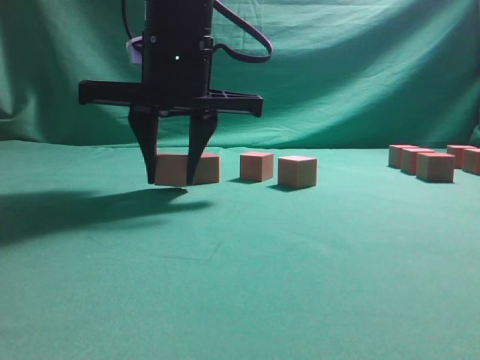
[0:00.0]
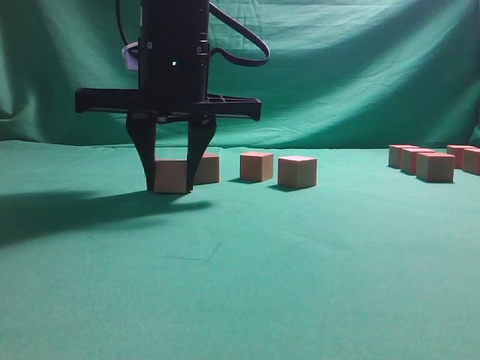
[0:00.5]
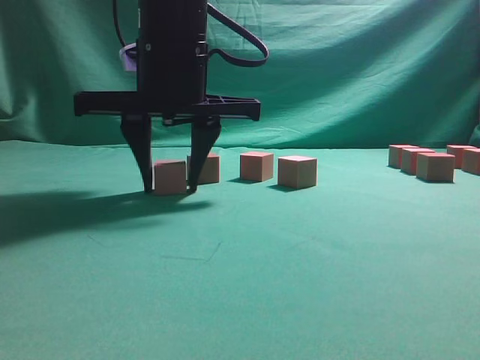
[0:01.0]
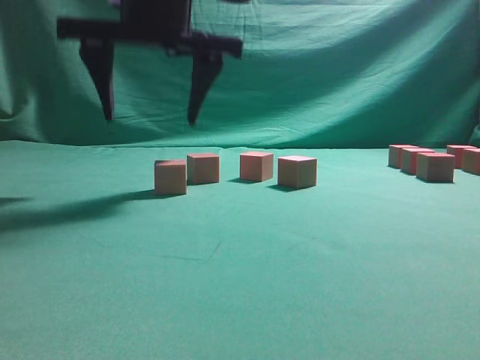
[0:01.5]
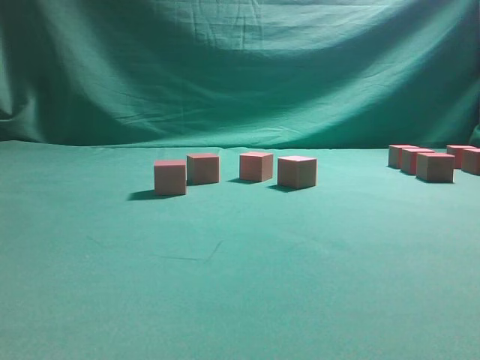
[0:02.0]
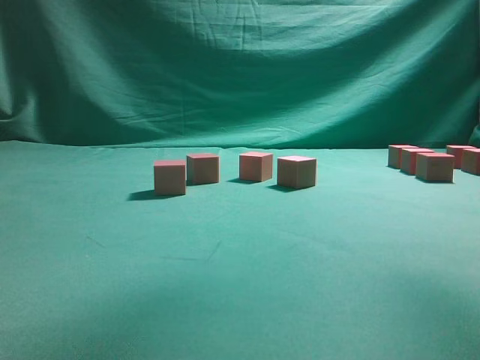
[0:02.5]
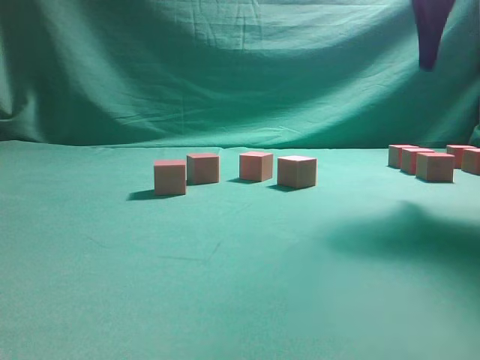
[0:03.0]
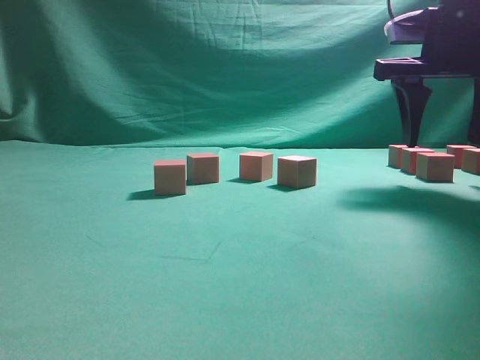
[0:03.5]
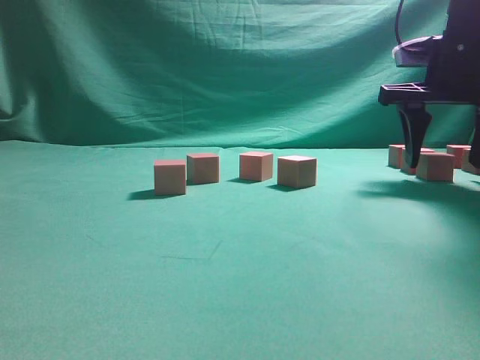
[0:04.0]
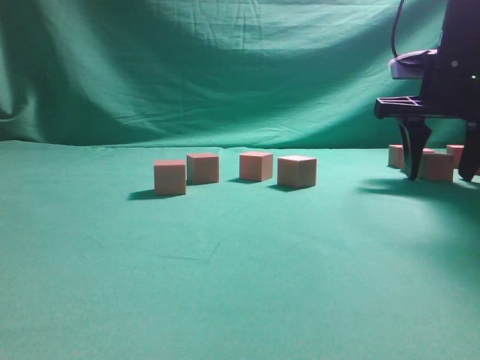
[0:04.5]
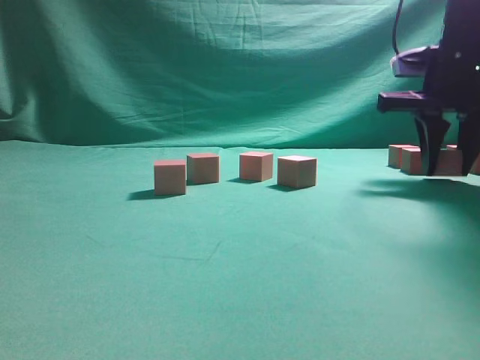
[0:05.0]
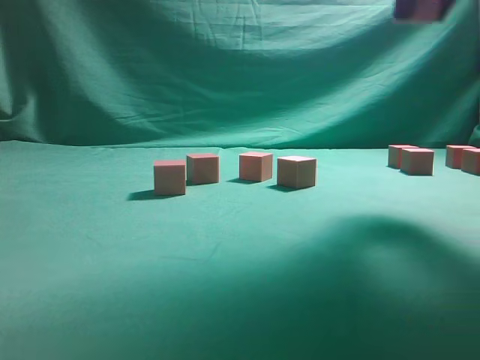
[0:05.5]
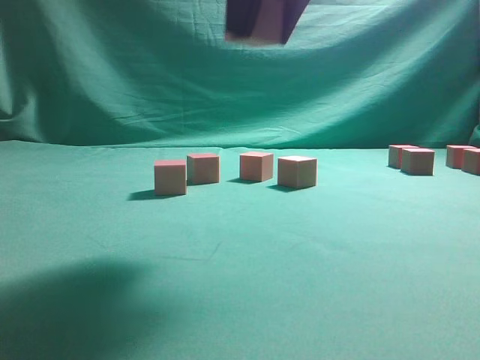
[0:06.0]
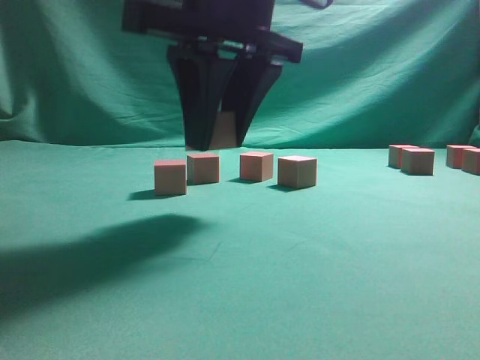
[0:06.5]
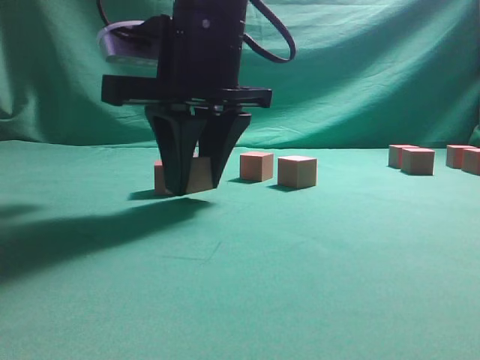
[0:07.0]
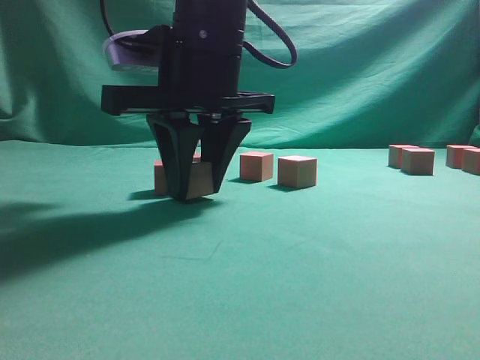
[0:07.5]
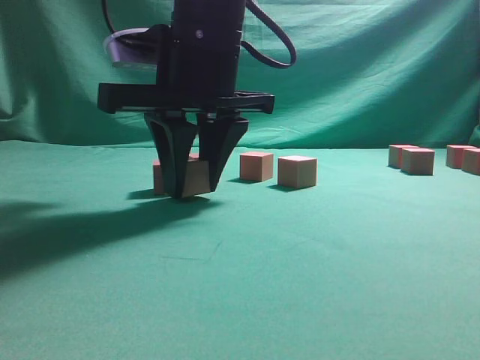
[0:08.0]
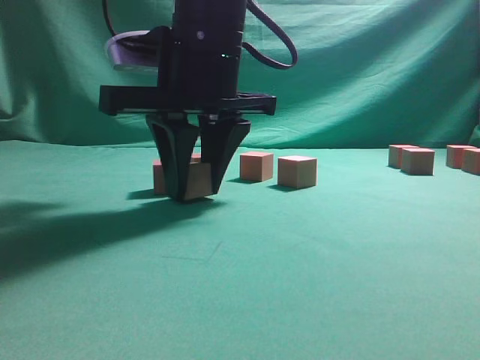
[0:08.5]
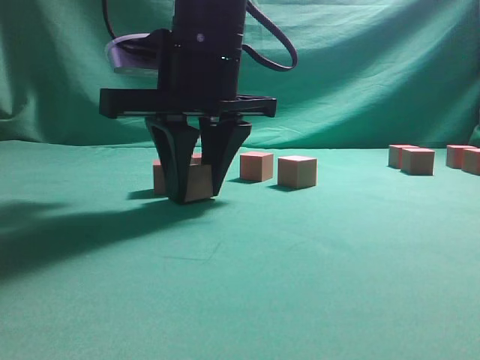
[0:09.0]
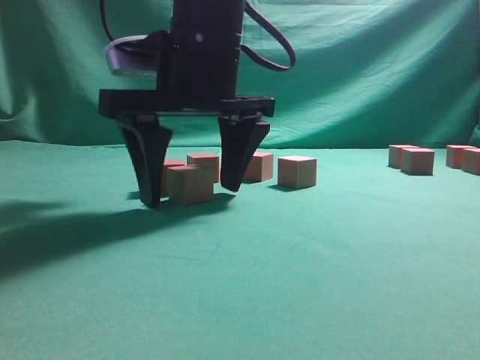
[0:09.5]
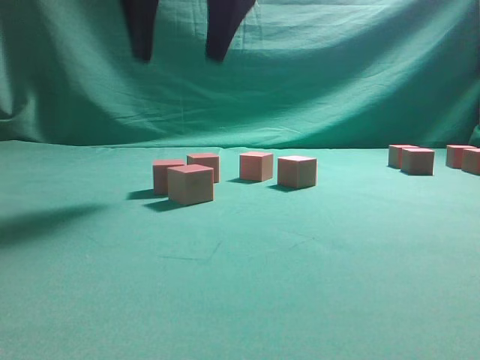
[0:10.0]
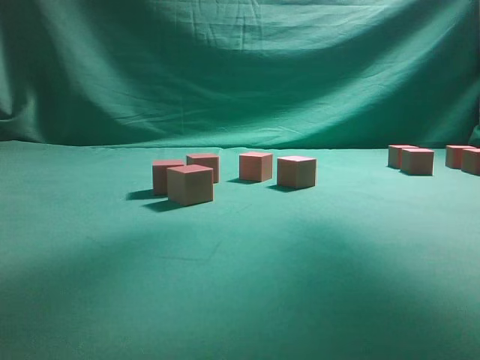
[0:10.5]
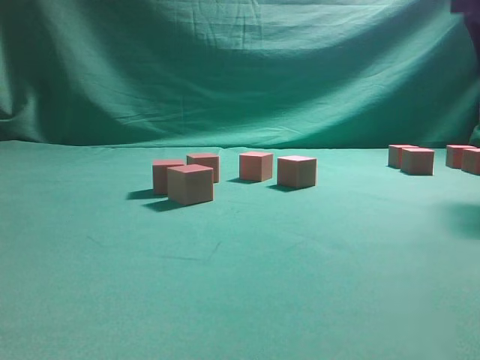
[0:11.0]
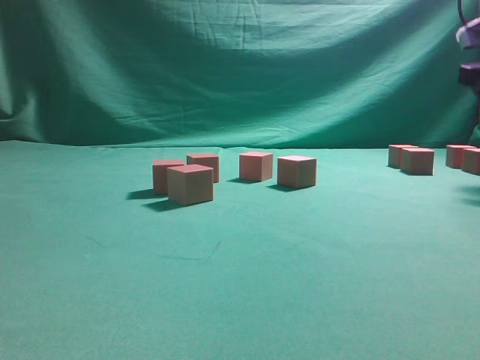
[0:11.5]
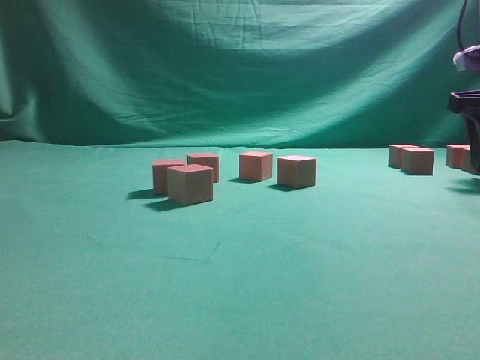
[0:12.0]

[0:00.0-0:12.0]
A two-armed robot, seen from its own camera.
Task of the whole recording: pick up the multiple cubes in two columns one by one and place them in another position on the table.
Step, 0:02.0 to 0:05.0: Pick up the block on the table.
Step, 0:05.5 to 0:10.0: Place the block at the correct position to assemble the letter S.
0:00.0 to 0:02.0: The right gripper travels upward by roughly 25 cm, and opens its fingers.
0:02.0 to 0:04.0: The right gripper goes roughly 35 cm downward and to the right.
0:04.0 to 0:06.0: The right gripper goes roughly 25 cm to the left, backward and upward, and closes.
0:06.0 to 0:08.0: The right gripper moves downward, to the left and forward, roughly 15 cm.
0:08.0 to 0:10.0: The right gripper travels upward by approximately 10 cm, and opens up.
0:10.0 to 0:12.0: The right gripper goes some 35 cm to the right.

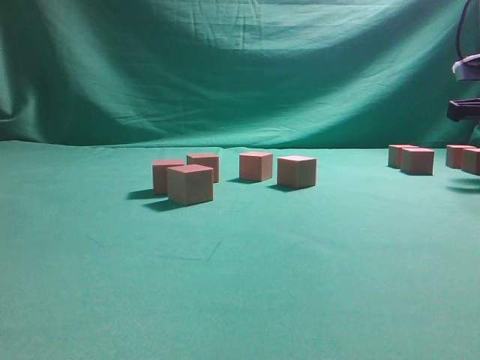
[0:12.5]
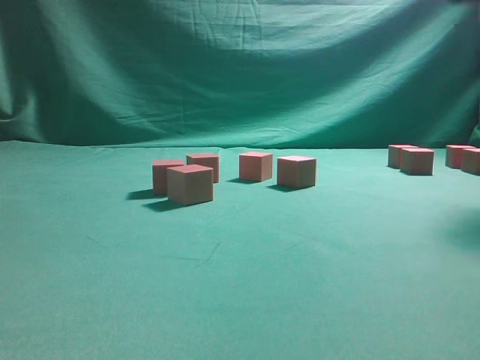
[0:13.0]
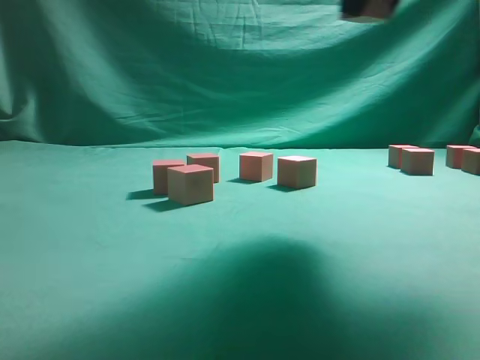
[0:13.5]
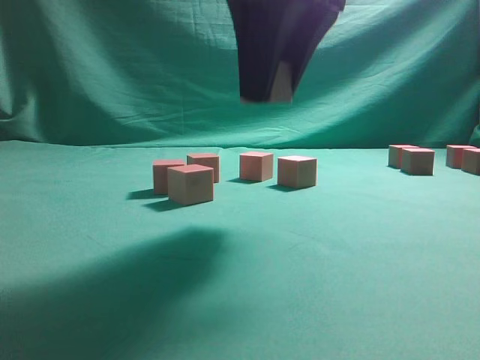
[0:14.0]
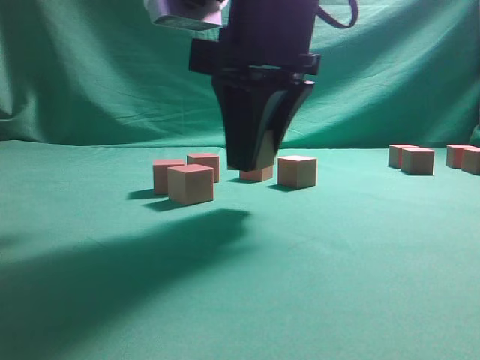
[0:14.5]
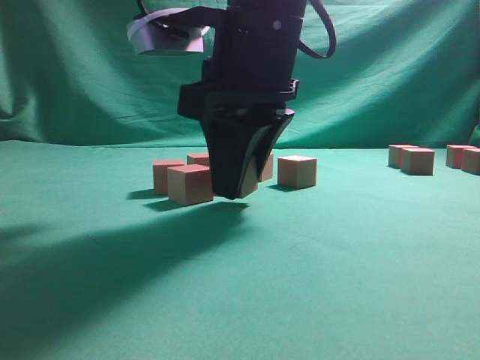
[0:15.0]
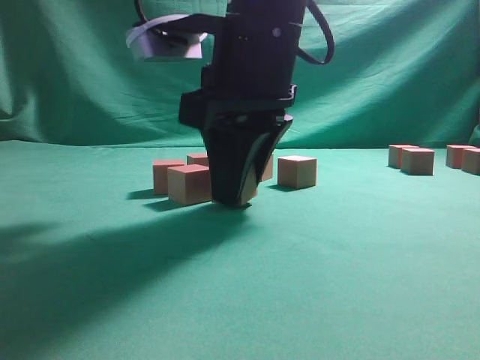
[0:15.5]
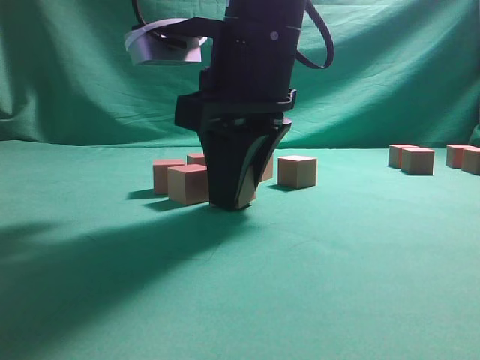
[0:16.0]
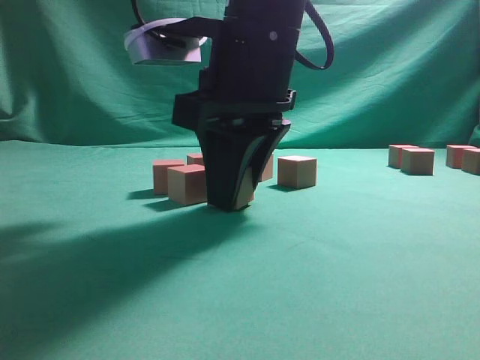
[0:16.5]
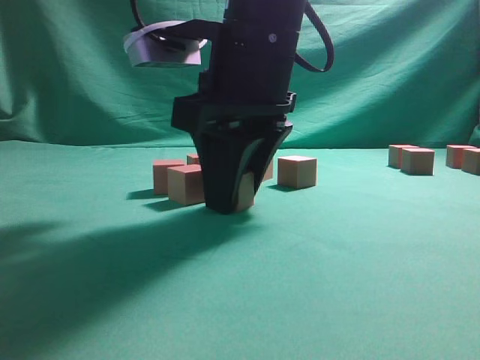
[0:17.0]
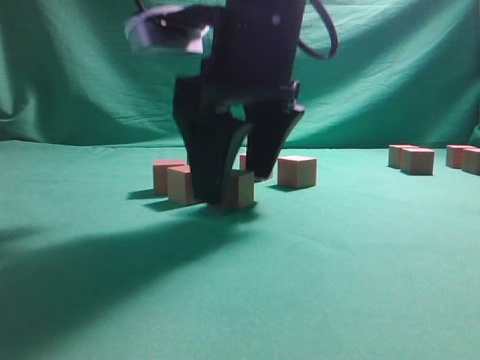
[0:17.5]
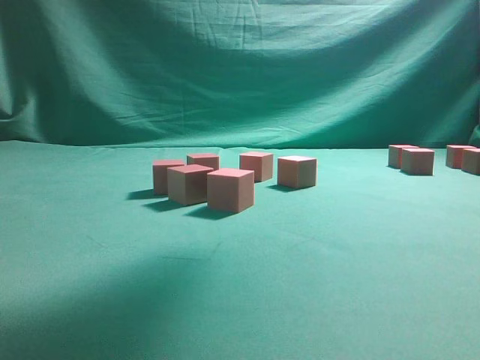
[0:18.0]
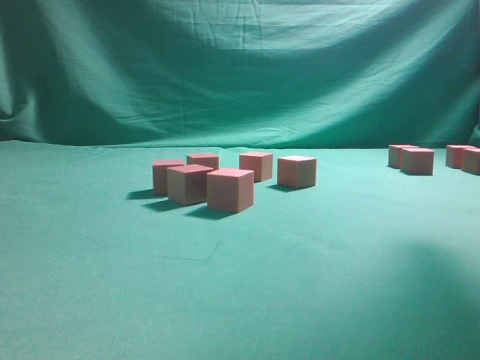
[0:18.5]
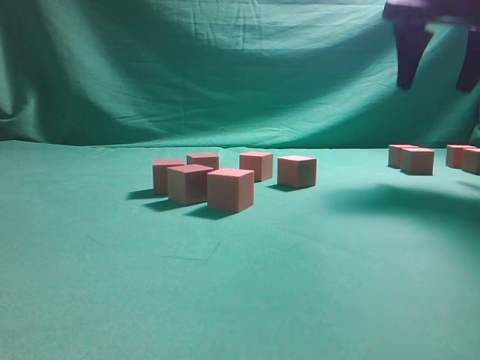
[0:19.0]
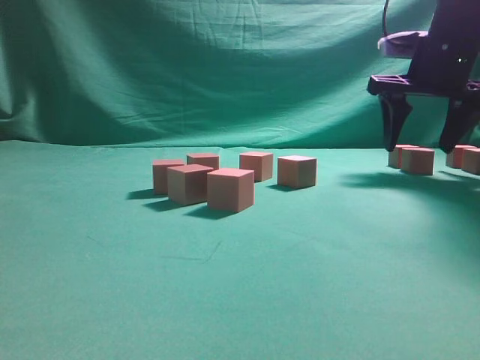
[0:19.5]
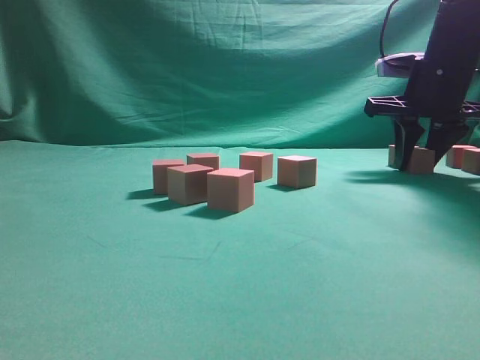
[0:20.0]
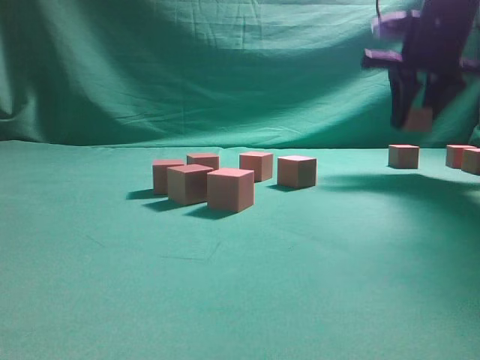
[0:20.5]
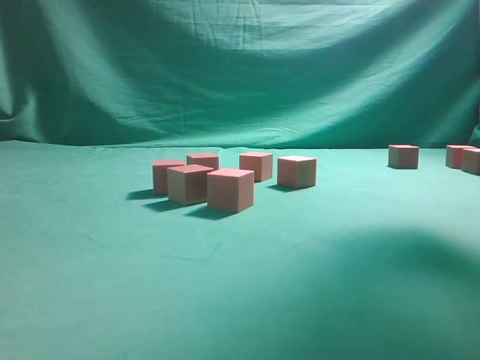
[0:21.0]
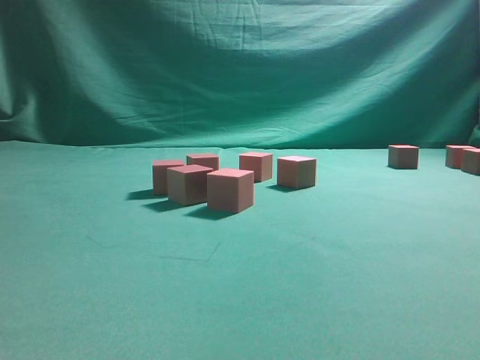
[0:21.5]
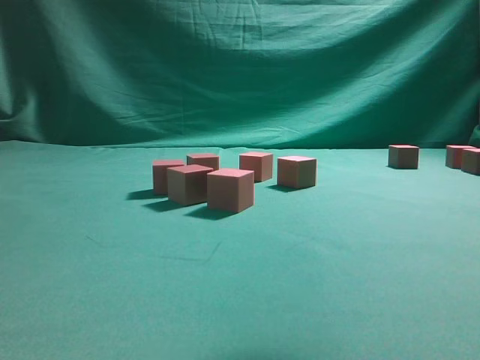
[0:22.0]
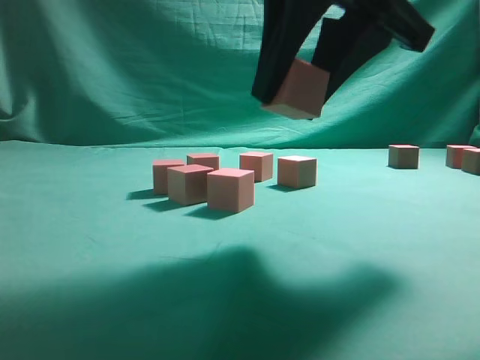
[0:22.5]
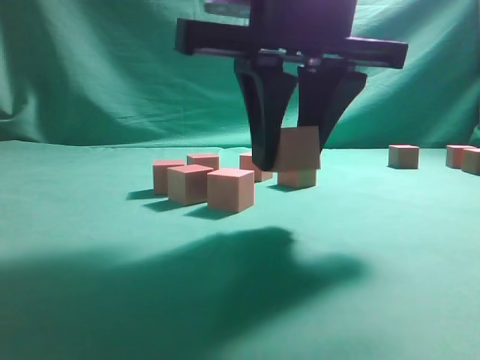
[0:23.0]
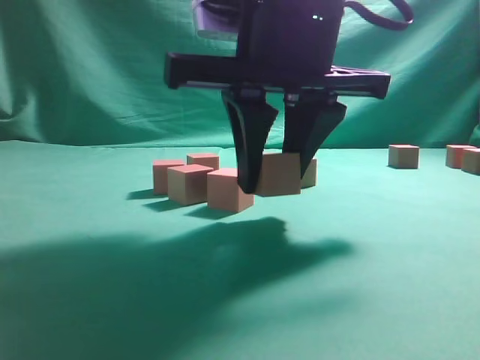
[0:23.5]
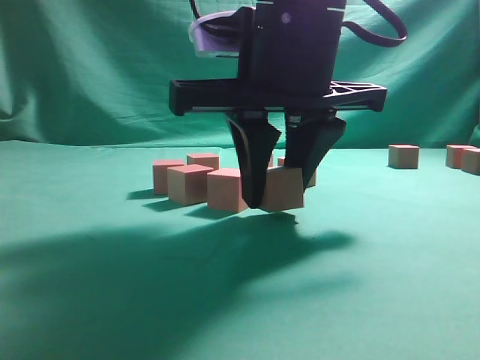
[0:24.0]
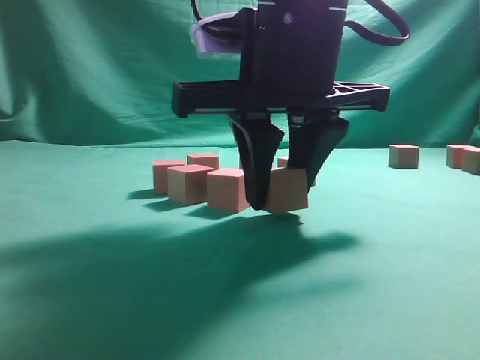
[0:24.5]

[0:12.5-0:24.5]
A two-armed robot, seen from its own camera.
Task of the whole recording: pick up the multiple cubes in two columns one by one and place them in another position on the table.
Step, 0:13.0 to 0:17.5: Place the block at the correct position to assemble the letter S.
Step, 0:18.0 to 0:20.0: Pick up the block on the table.
0:12.5 to 0:14.5: The right gripper travels to the left and backward by some 30 cm.
0:14.5 to 0:16.5: The grippers make only small movements.
0:16.5 to 0:18.5: The right gripper is displaced to the right and upward by about 30 cm, and opens up.
0:18.5 to 0:20.5: The right gripper moves downward and forward, about 20 cm, and closes its fingers.
0:20.5 to 0:22.5: The right gripper is displaced backward and to the left by about 25 cm.
0:22.5 to 0:24.5: The right gripper is displaced downward by some 5 cm.

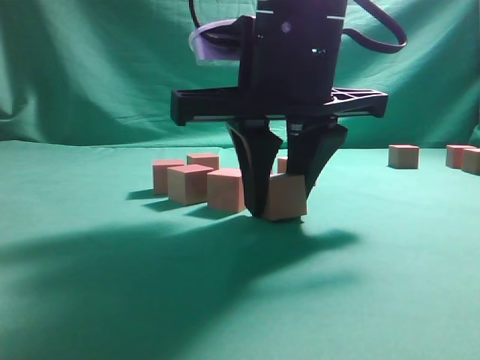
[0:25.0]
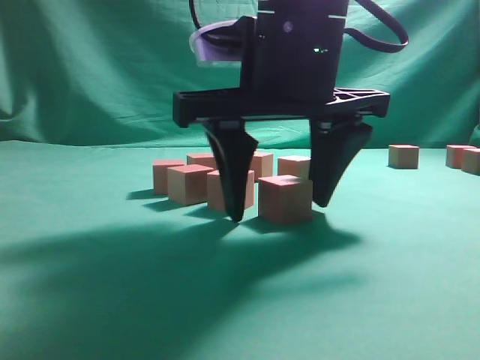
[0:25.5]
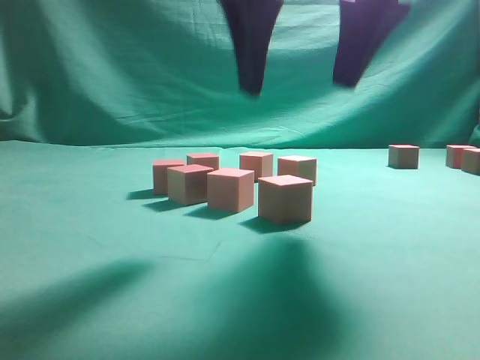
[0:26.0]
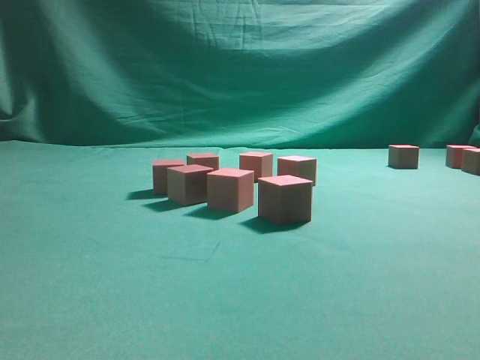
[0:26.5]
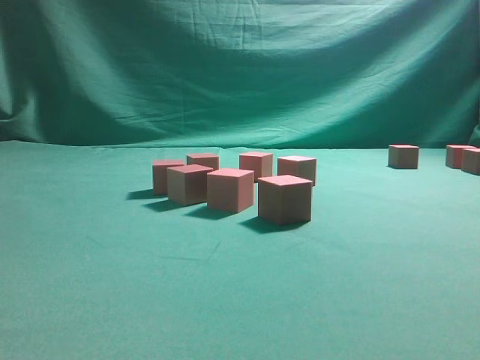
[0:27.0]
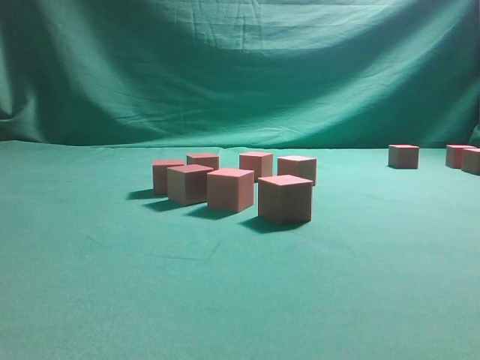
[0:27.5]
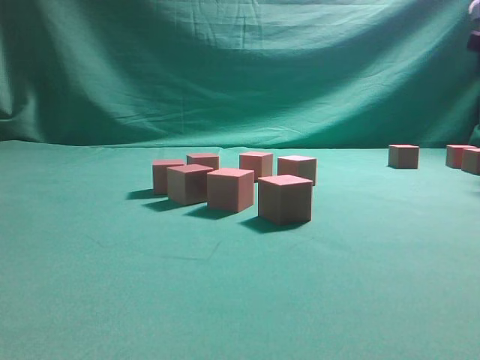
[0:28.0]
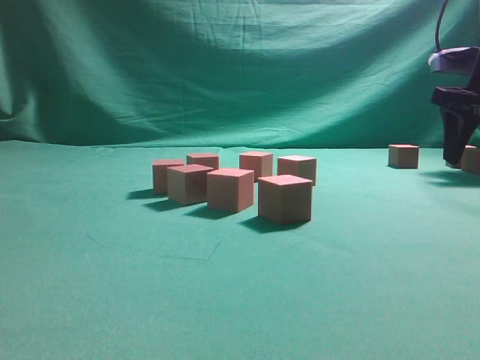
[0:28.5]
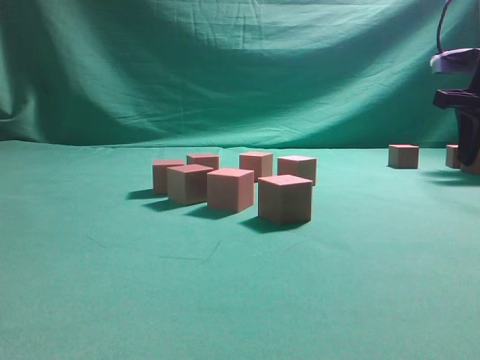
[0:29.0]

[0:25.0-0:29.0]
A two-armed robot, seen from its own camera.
Task of the whole recording: pick up the multiple cubes in two columns one by one and place them in another position on the table.
0:25.0 to 0:27.0: The right gripper heads upward and to the right, covering roughly 30 cm, and opens.
0:27.0 to 0:29.0: The right gripper moves downward and forward, some 30 cm, and closes.
